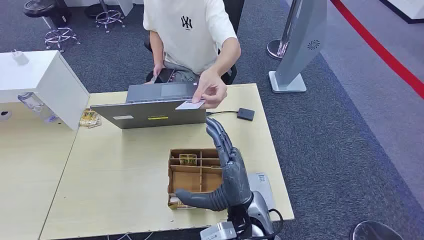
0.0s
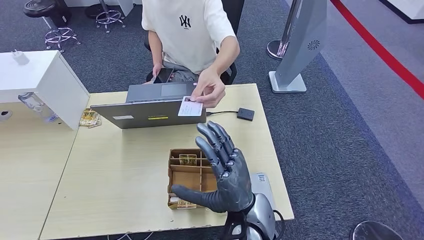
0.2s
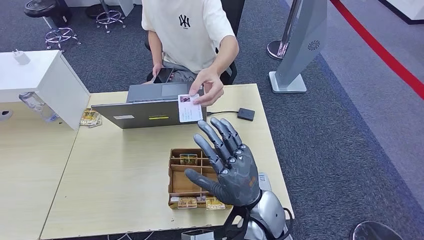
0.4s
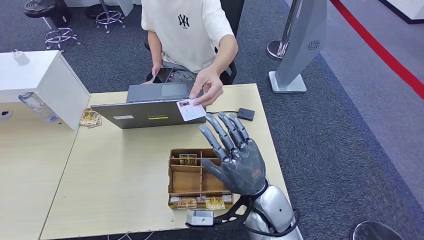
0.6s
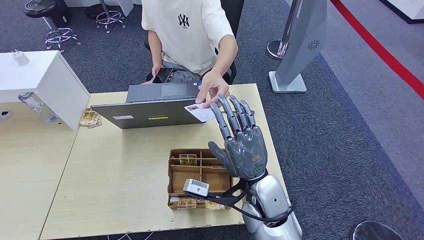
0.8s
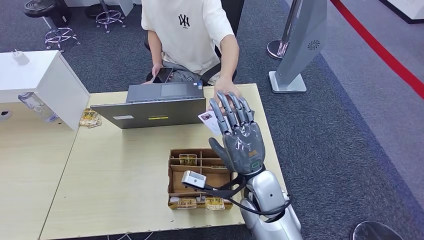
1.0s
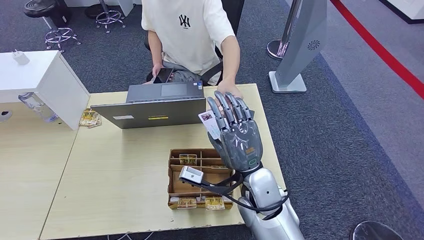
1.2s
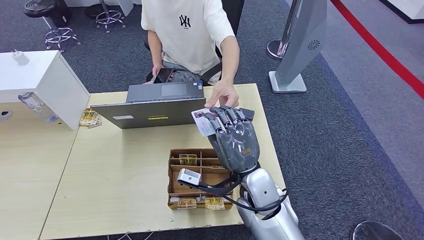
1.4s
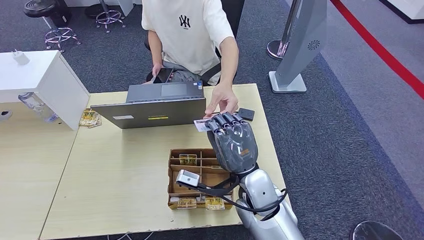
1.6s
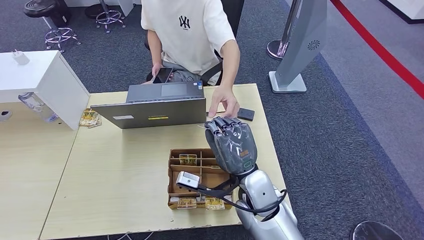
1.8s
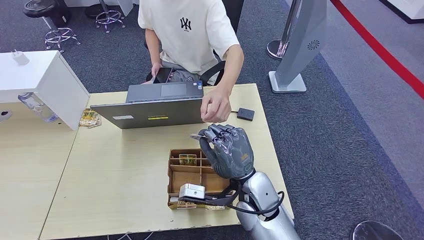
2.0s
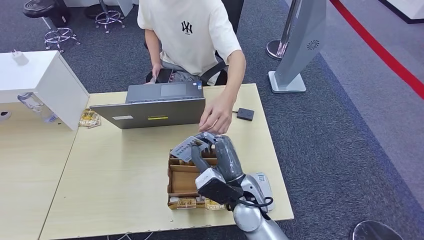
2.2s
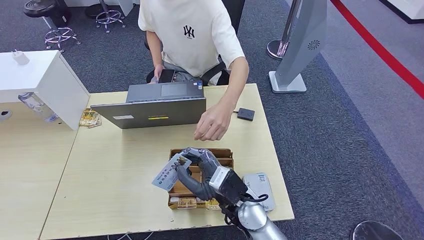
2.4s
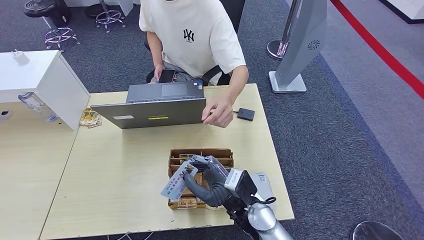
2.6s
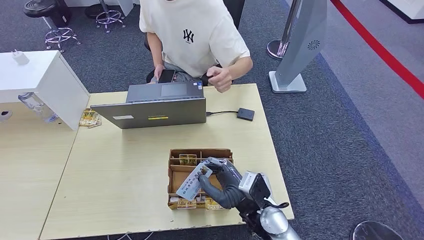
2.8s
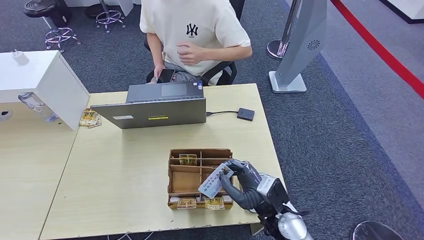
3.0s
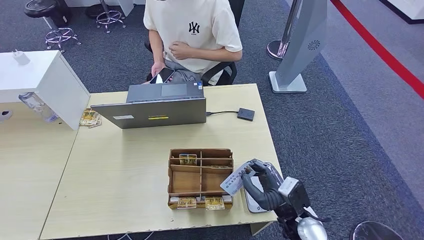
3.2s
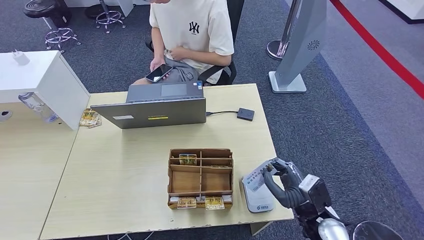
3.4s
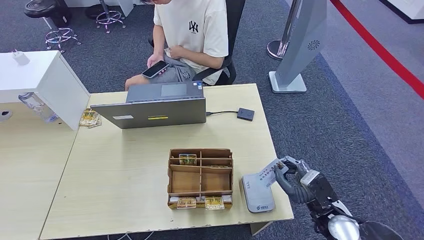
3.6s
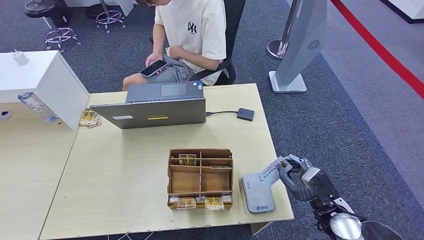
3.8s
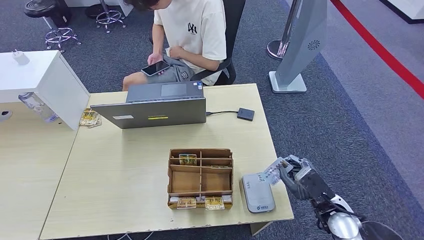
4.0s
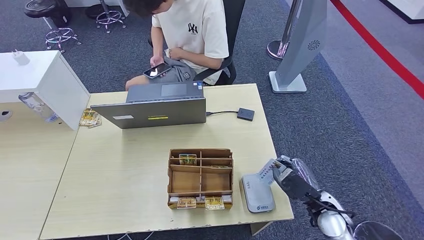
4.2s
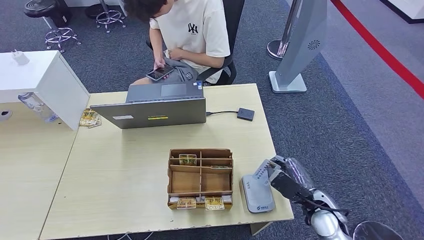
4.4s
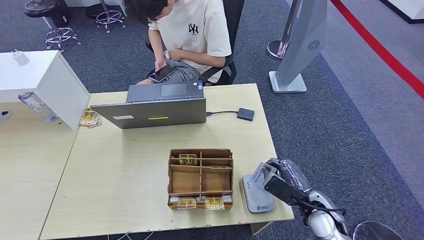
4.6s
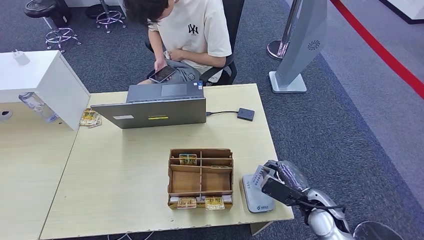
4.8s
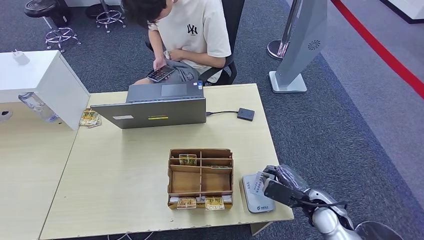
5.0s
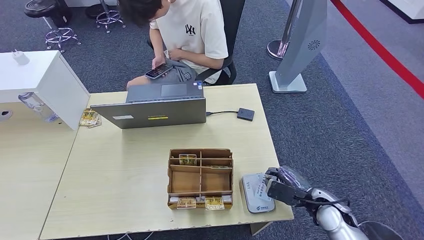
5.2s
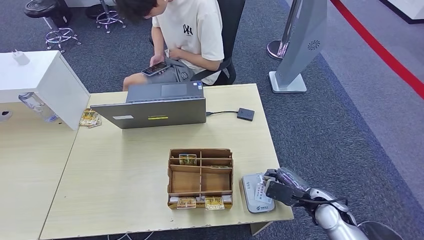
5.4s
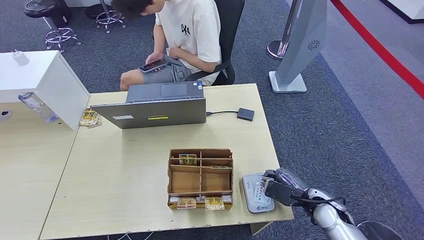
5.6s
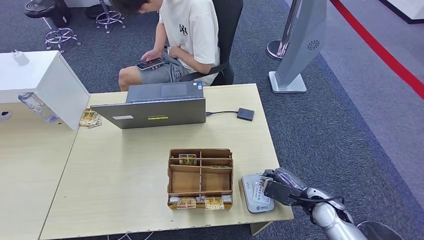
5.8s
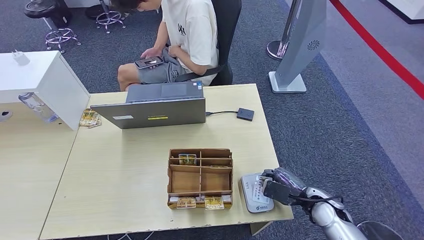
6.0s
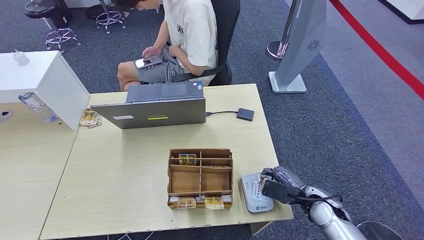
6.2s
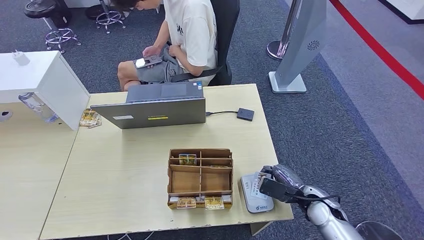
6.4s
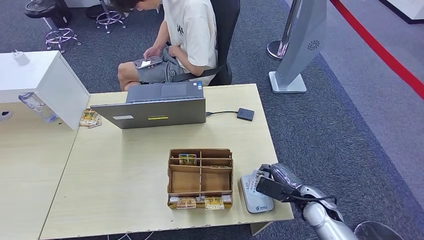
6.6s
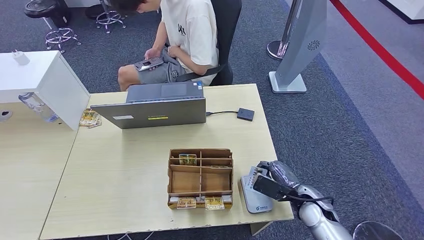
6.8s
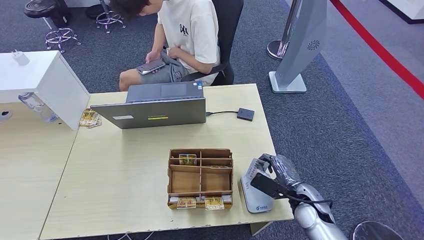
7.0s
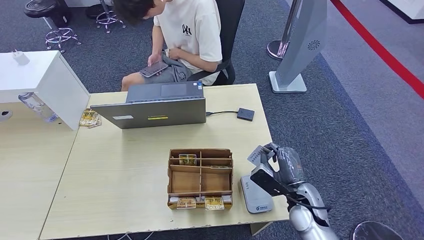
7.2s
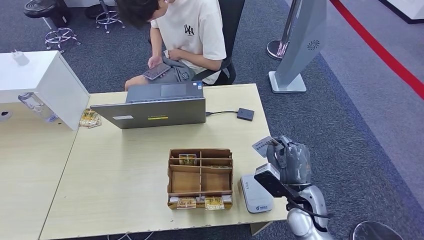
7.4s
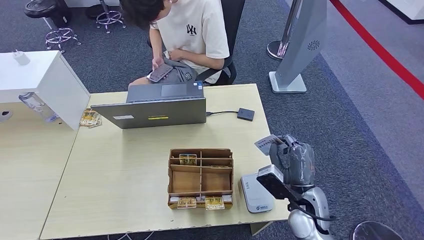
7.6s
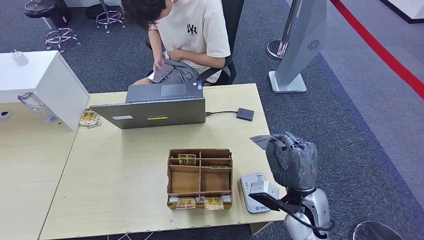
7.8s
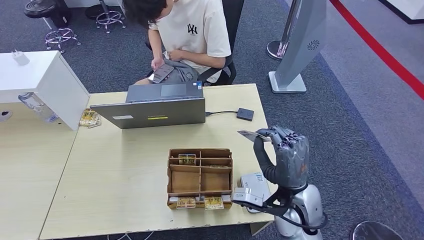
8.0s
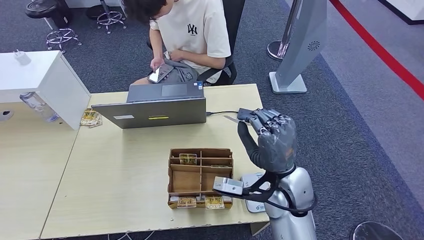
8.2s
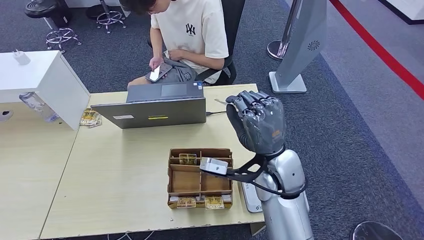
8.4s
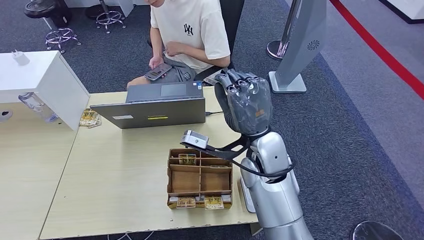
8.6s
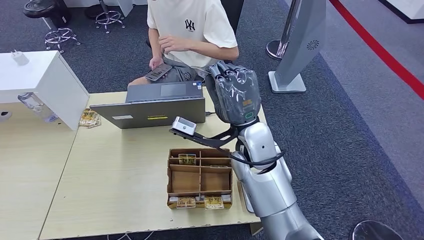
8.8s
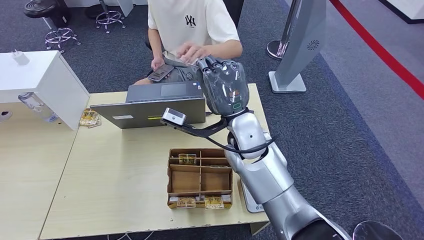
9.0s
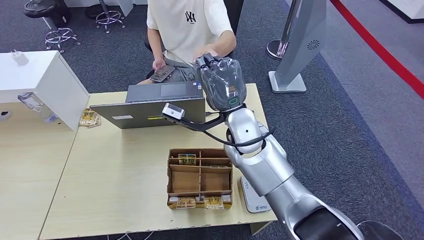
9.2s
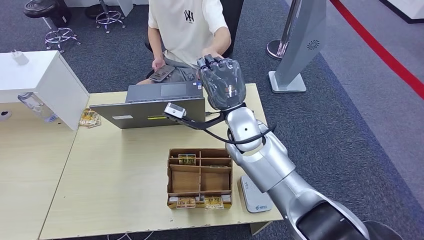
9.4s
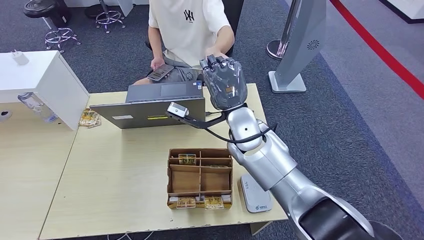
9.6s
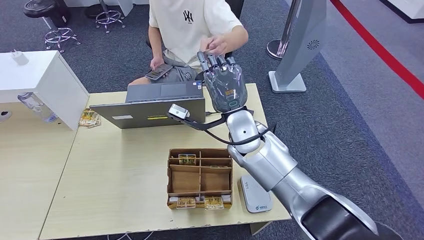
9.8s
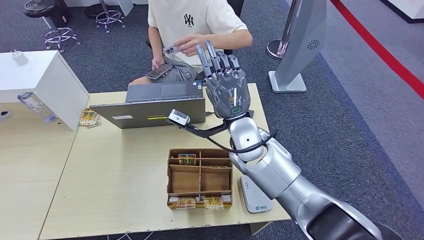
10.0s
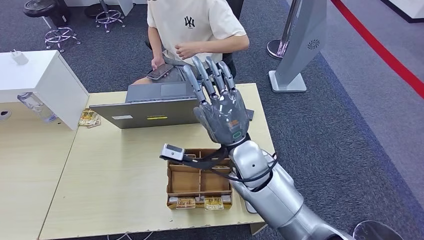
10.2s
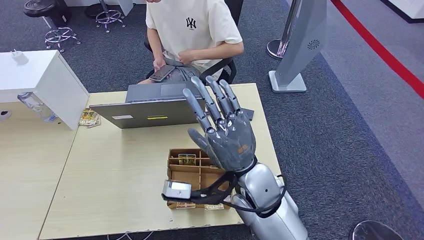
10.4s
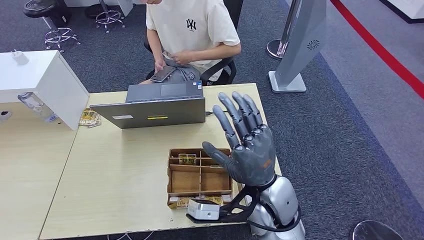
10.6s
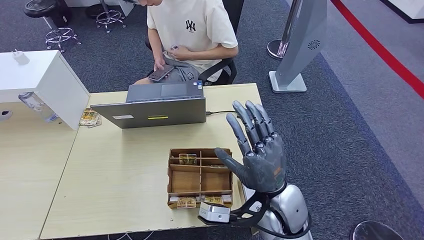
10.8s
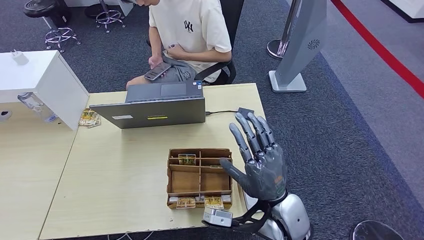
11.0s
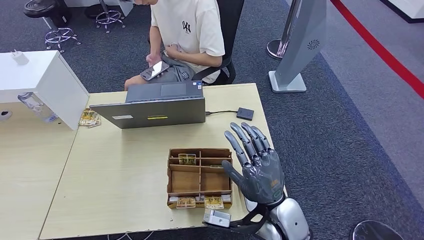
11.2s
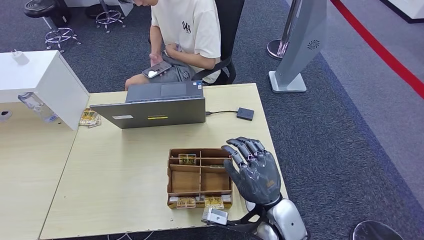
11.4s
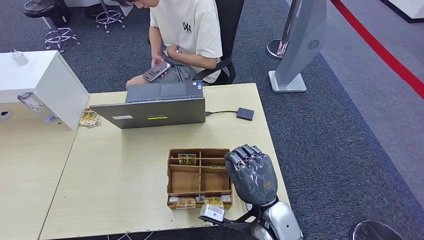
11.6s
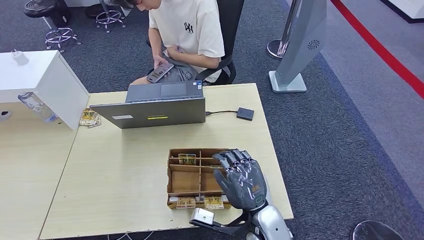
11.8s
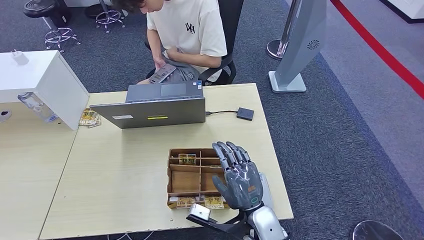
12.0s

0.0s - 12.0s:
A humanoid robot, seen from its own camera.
Step, 0.0s - 2.8s: Take the ID card from the person's hand.
Step, 3.0s - 8.0s: Place the ID card on the card reader.
Step, 8.2s - 10.6s: Hand the ID card to the person.
1.6s - 3.0s: The right hand travels downward and to the right by approximately 10 cm.
3.0s - 4.4s: The right hand shifts approximately 15 cm to the right.
6.0s - 7.6s: The right hand travels to the left and upward by roughly 10 cm.
7.6s - 9.0s: The right hand travels upward, to the left and forward by roughly 25 cm.
9.0s - 10.4s: The right hand shifts some 10 cm backward.
10.4s - 12.0s: The right hand goes roughly 15 cm downward and backward.

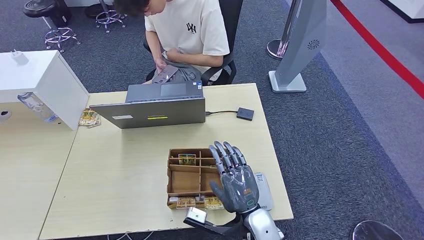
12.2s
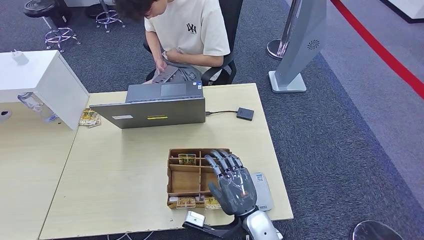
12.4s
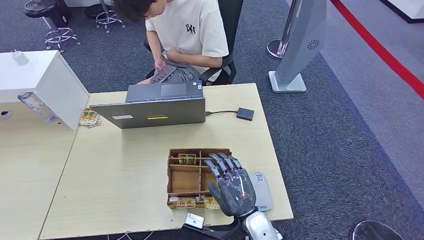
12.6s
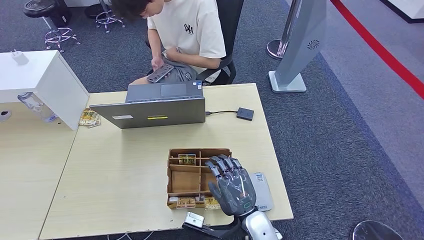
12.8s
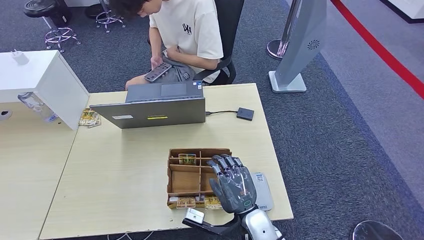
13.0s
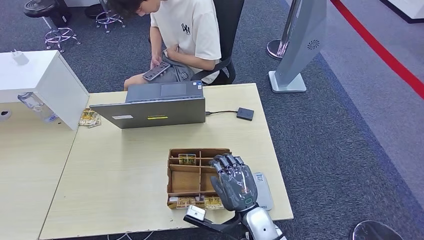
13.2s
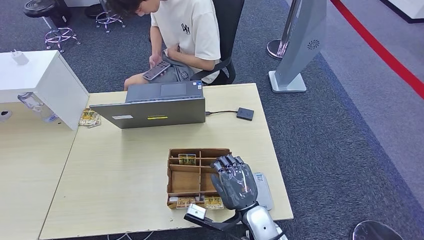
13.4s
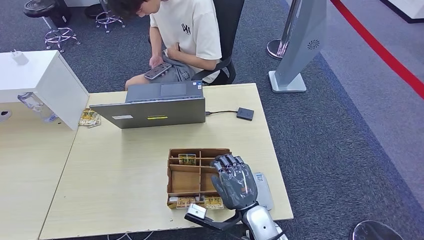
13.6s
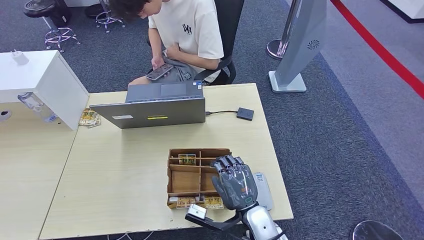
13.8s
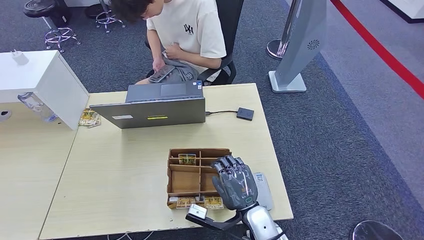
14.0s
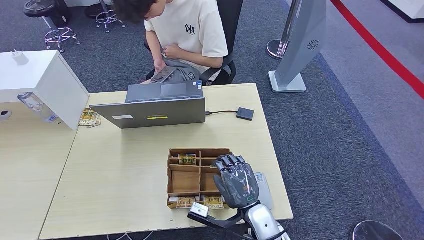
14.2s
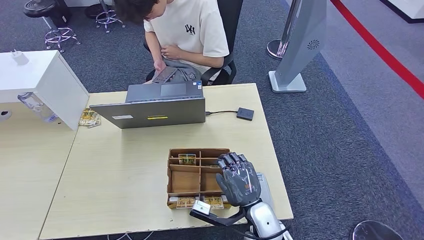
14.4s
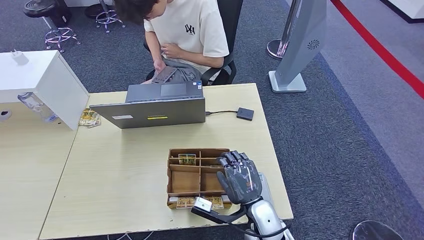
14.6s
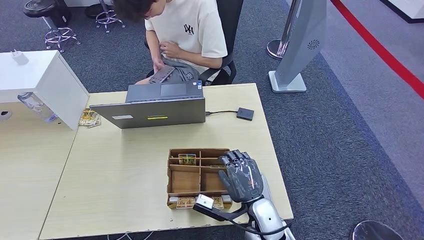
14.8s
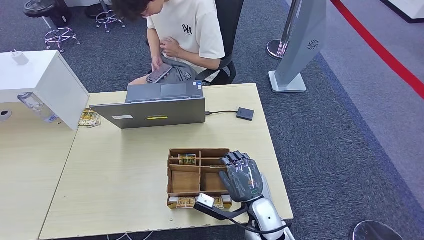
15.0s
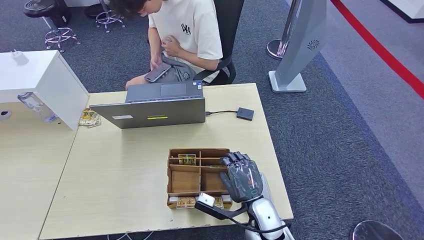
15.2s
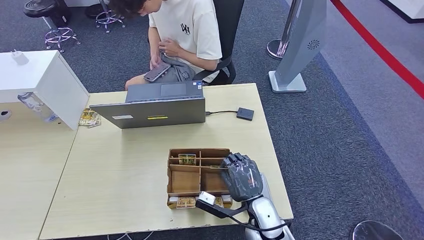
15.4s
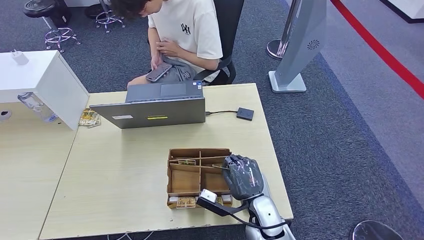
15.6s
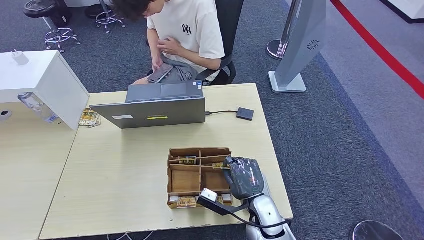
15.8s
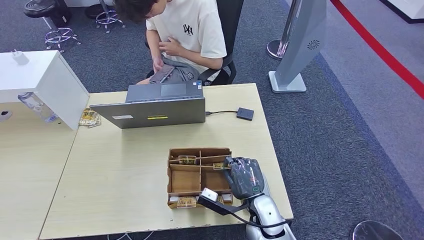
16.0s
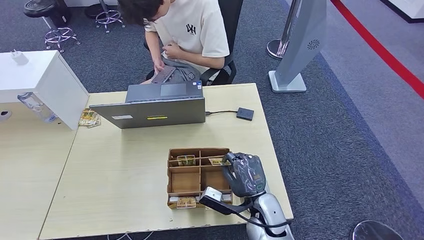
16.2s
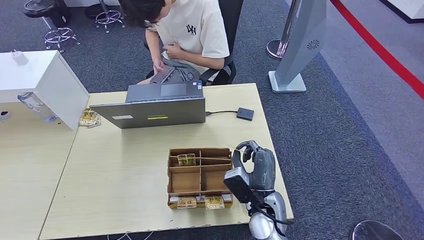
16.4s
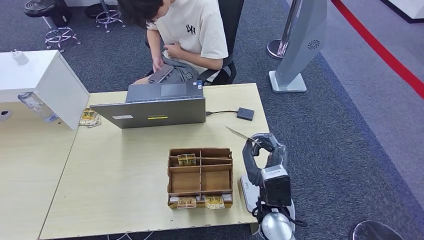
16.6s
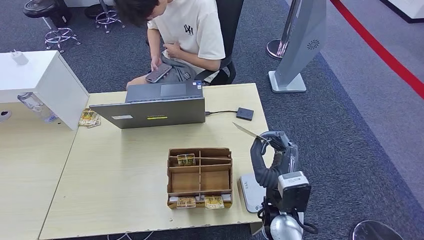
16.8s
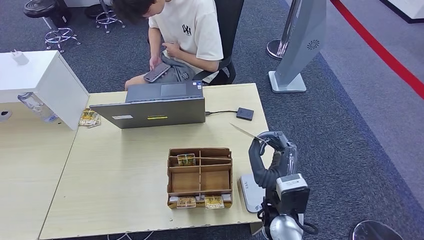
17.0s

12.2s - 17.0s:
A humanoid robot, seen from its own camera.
12.2s - 15.4s: The hands make only small movements.
15.4s - 17.0s: The right hand goes some 10 cm upward.
